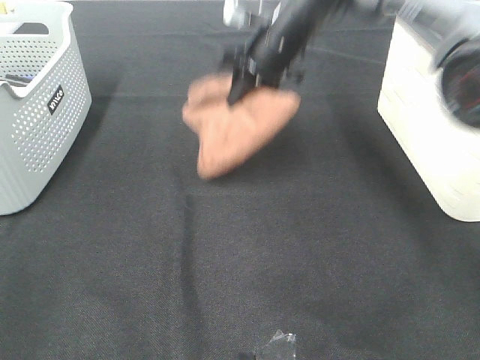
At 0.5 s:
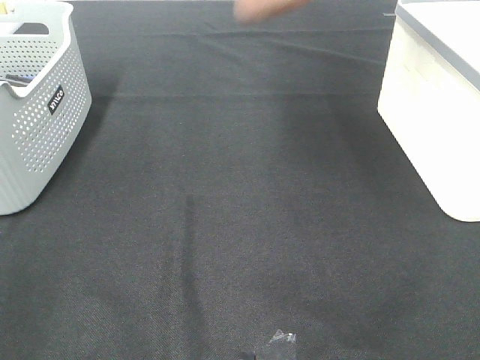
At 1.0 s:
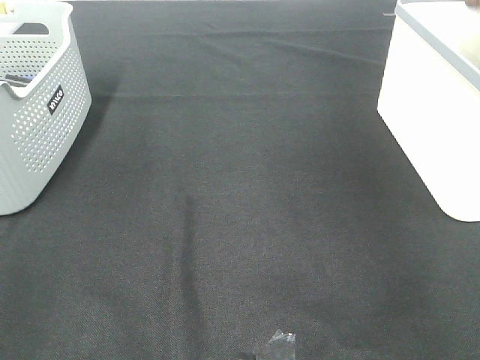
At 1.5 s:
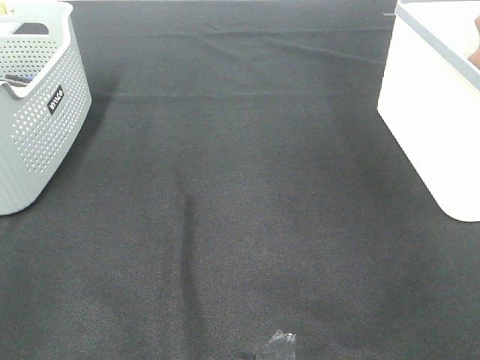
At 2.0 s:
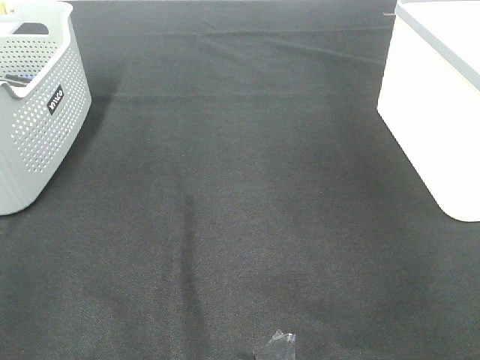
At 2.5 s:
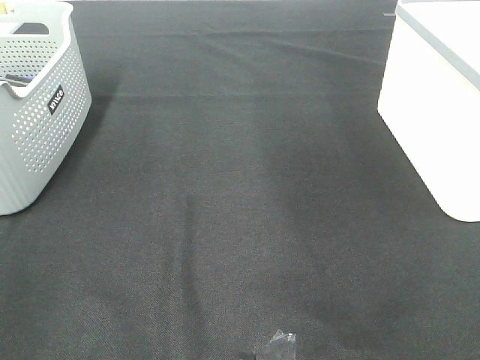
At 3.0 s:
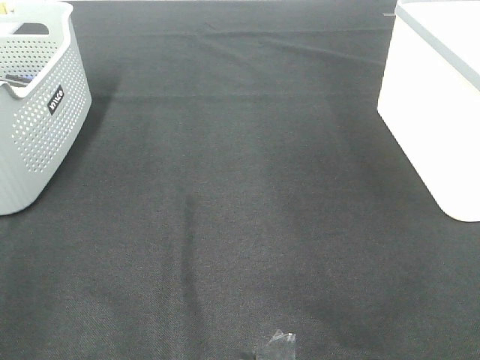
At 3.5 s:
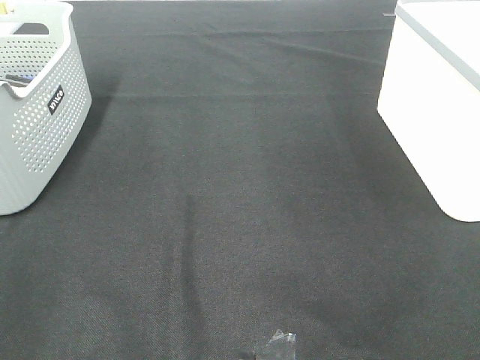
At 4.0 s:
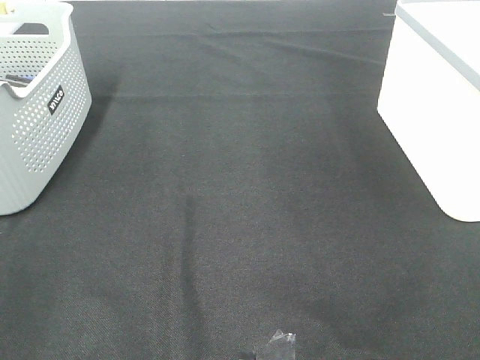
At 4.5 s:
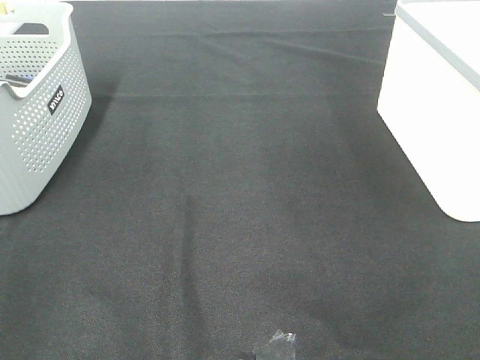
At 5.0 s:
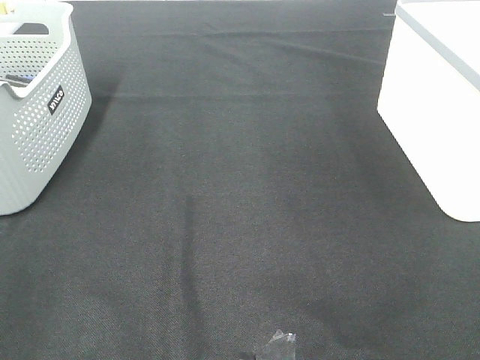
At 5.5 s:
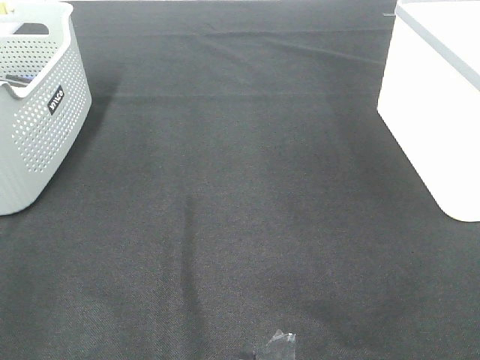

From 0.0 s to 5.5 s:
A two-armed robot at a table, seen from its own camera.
Step, from 0.0 s to 1.5 s: Right hand: place the brown towel in right basket.
From 0.0 s to 2.0 s: The right gripper shifts roughly 35 cm to the right and upward, and opens.
